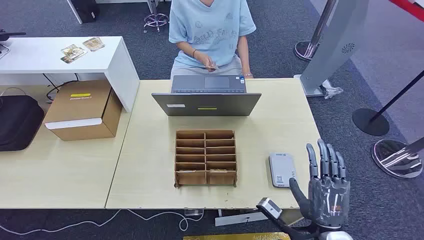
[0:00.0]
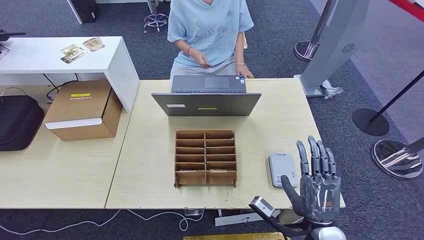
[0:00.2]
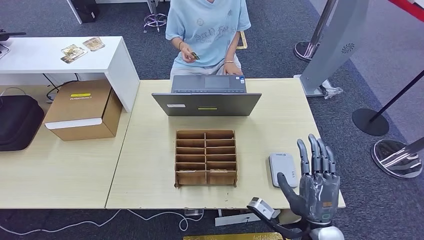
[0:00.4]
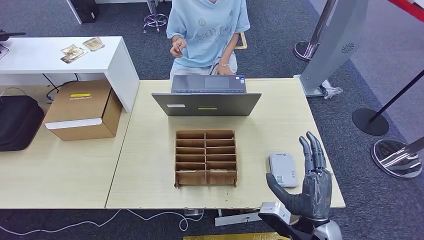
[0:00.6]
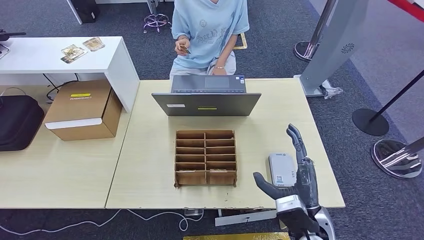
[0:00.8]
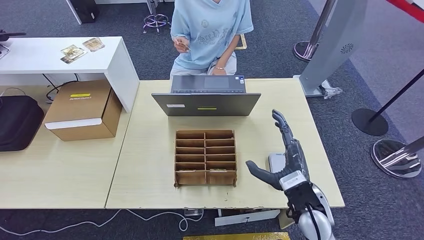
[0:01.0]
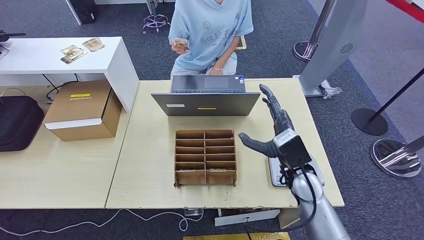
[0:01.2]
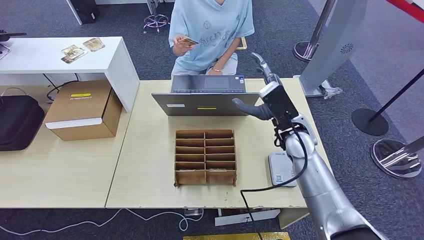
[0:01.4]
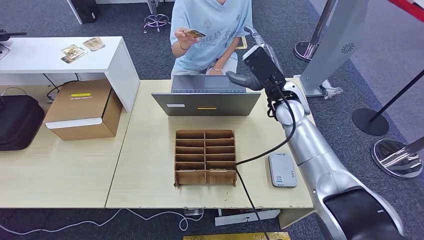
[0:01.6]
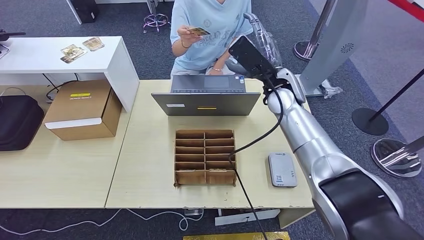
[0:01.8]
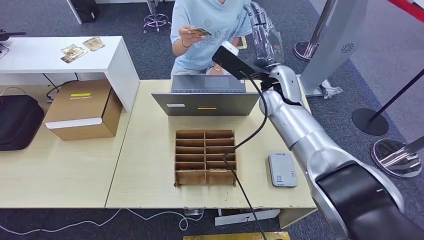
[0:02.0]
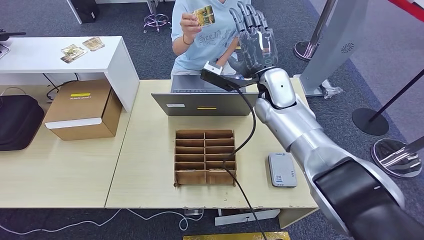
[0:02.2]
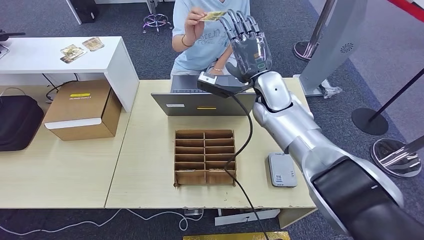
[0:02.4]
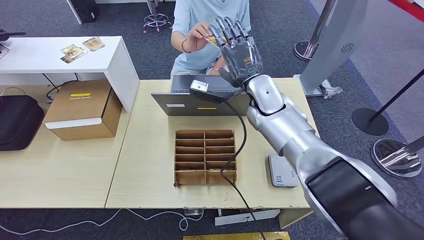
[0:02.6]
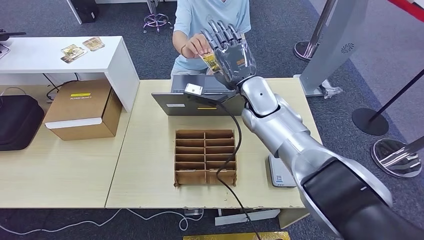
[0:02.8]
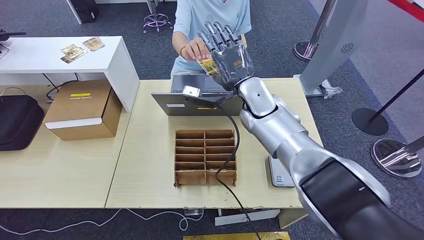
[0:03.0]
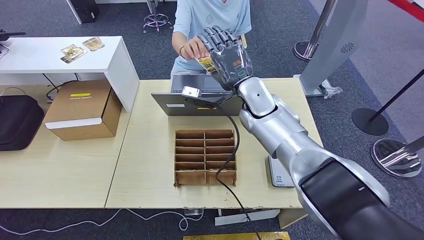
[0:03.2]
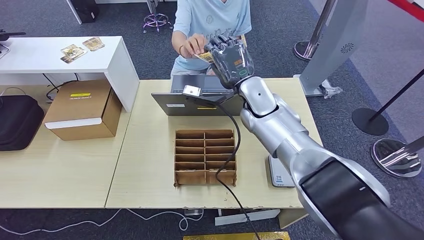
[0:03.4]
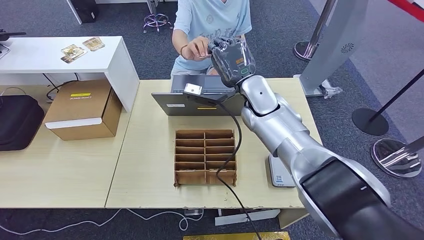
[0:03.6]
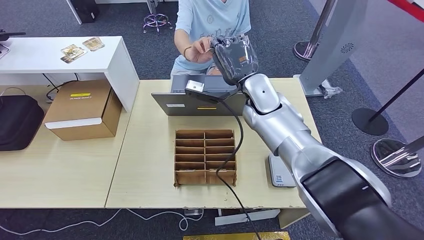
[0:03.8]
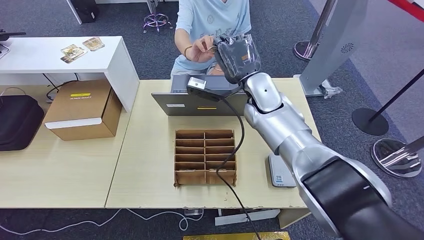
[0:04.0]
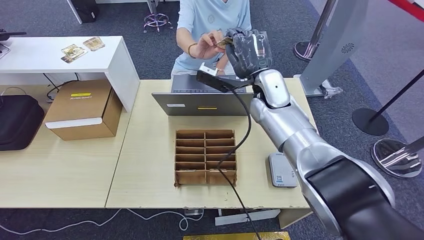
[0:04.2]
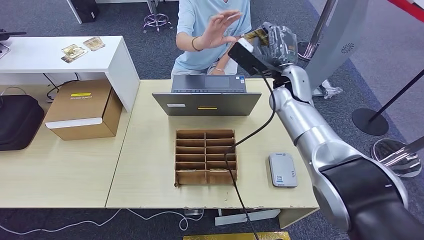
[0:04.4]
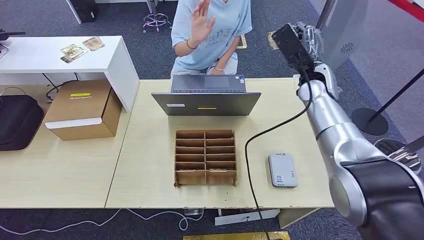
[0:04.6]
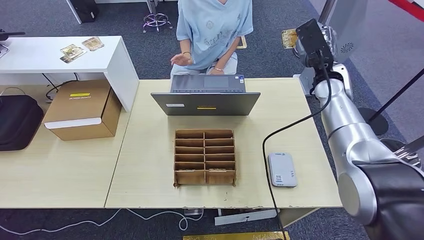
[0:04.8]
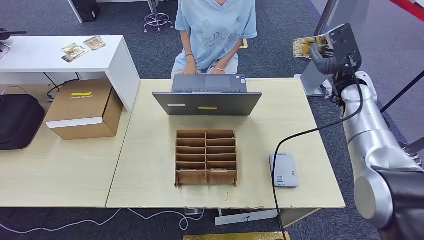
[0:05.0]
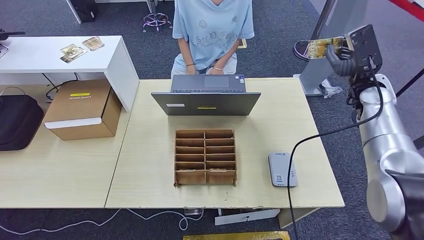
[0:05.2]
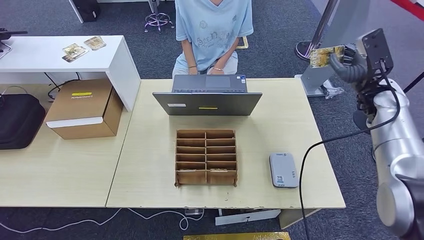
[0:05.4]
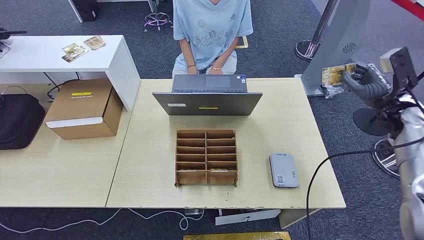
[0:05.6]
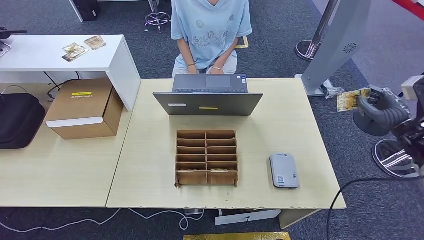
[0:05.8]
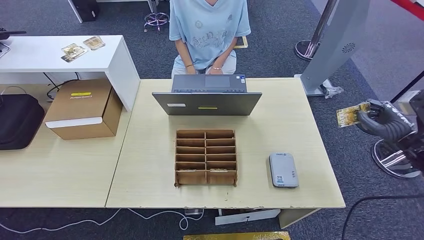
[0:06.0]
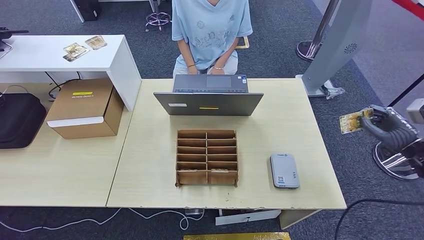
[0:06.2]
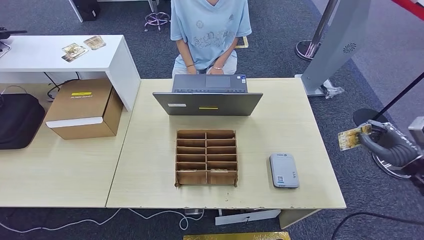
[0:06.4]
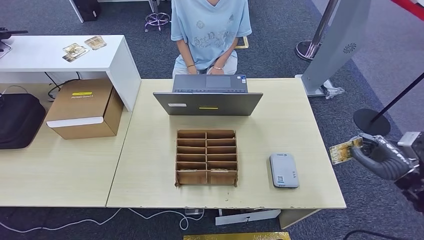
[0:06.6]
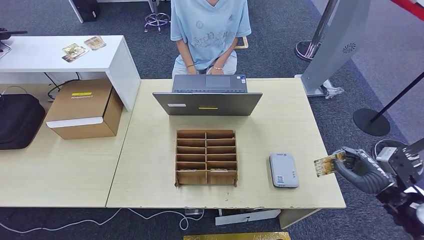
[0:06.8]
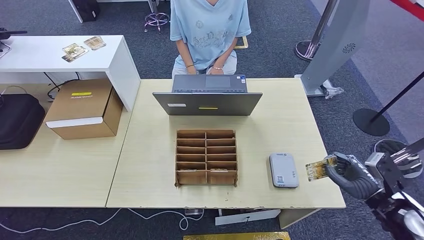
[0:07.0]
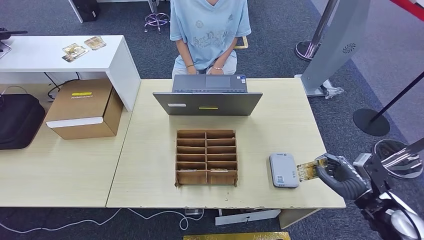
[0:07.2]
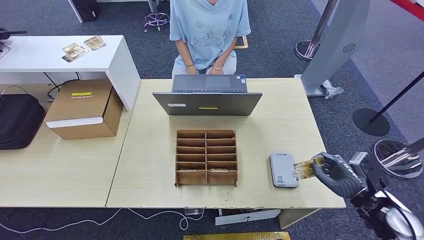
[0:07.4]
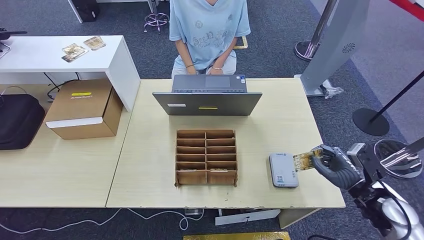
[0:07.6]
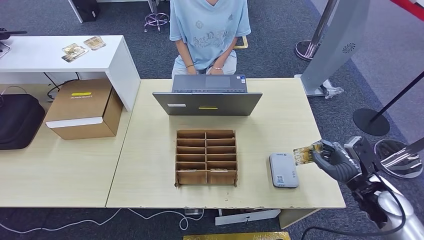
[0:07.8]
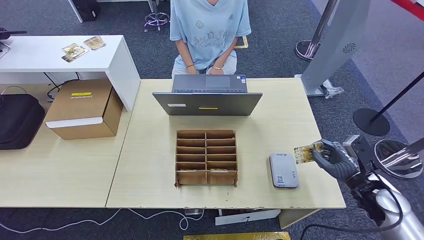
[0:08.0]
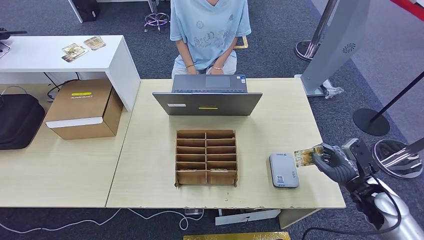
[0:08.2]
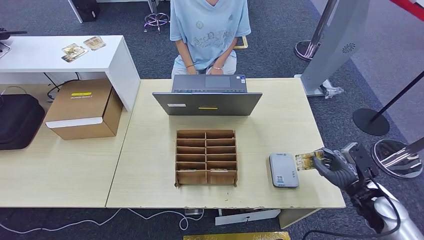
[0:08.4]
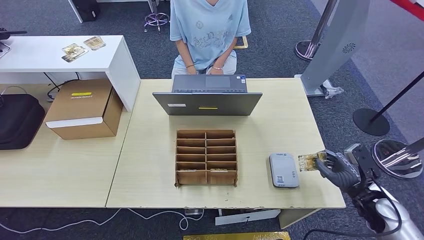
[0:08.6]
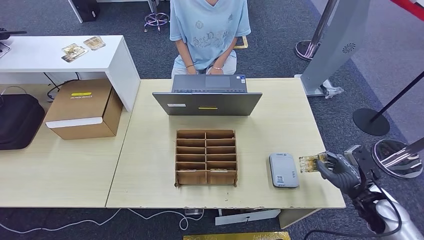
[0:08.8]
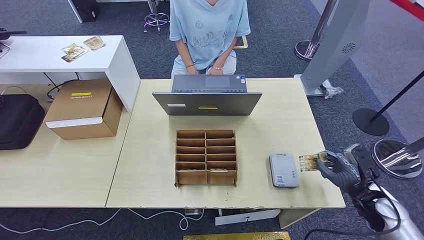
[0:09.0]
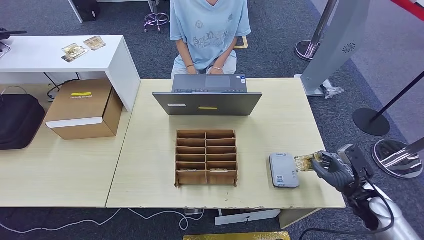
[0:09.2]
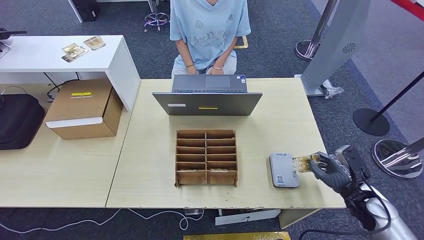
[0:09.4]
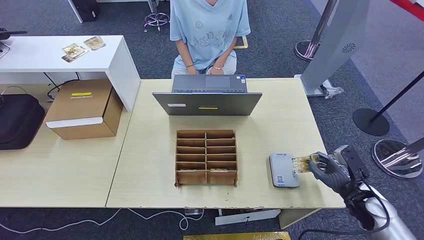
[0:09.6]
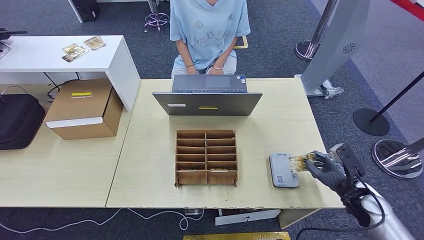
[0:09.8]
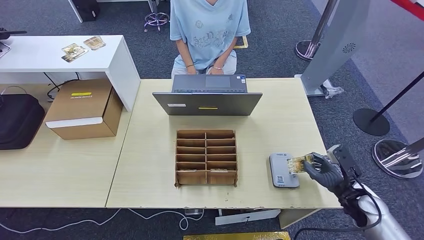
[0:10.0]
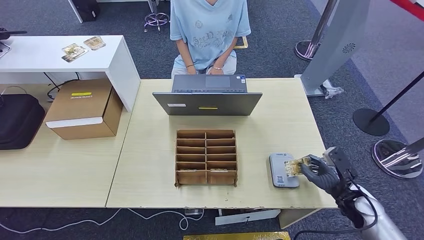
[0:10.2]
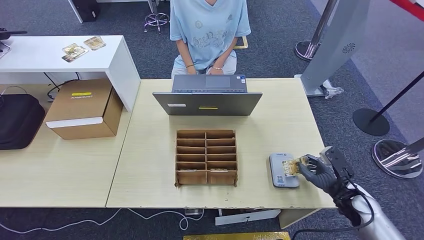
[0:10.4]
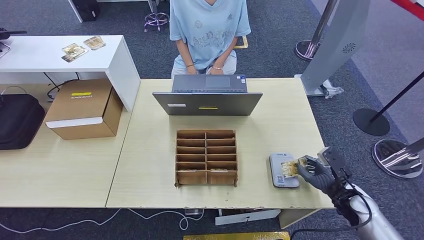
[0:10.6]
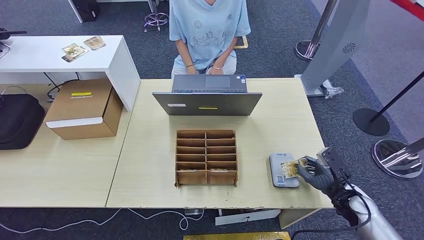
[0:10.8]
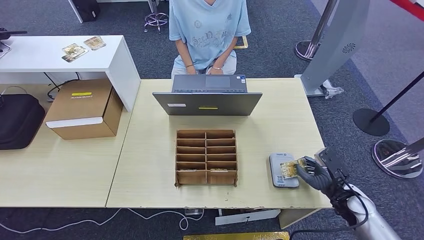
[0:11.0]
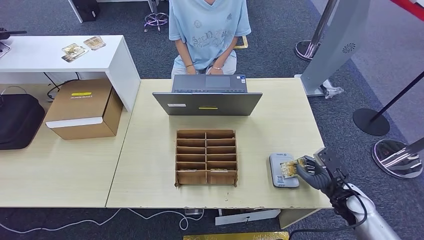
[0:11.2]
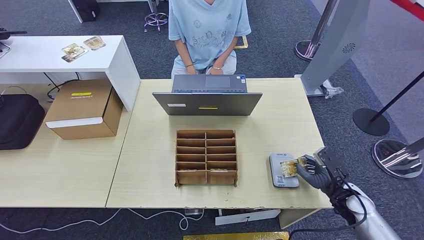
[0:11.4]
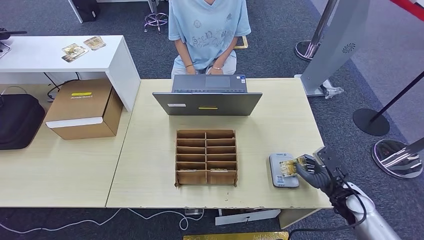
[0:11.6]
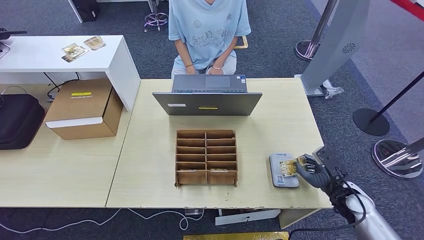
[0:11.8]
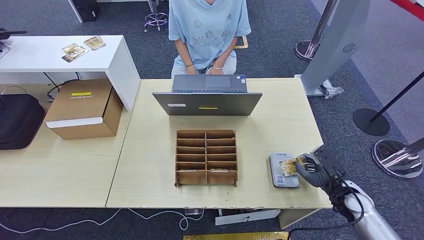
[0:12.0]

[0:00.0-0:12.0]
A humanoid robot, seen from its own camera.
Step, 0:00.0 to 0:06.2: Take the ID card from the person's hand.
0:01.6 to 0:03.0: The right hand goes some 5 cm to the left.
0:03.0 to 0:04.4: The right hand is displaced to the right by roughly 10 cm.
0:04.4 to 0:06.0: The right hand travels to the right and backward by some 35 cm.
0:06.0 to 0:07.6: The right hand travels to the left, downward and backward by roughly 15 cm.
0:07.6 to 0:09.0: There are only small adjustments of the hands.
0:09.0 to 0:12.0: The hands stay close to where they were, moving slightly.

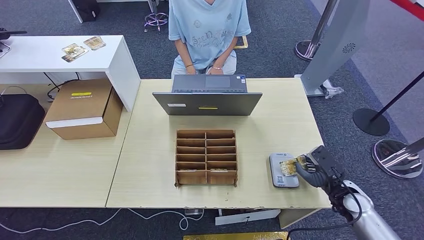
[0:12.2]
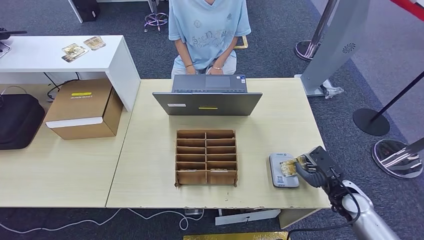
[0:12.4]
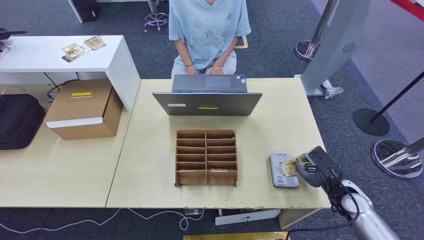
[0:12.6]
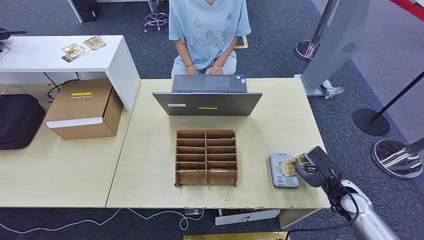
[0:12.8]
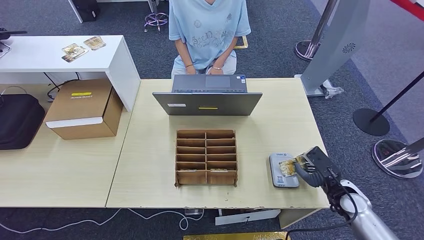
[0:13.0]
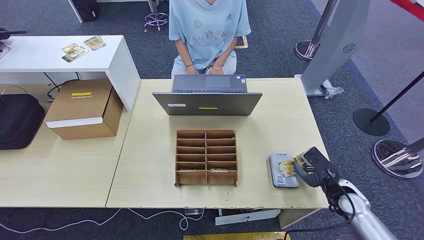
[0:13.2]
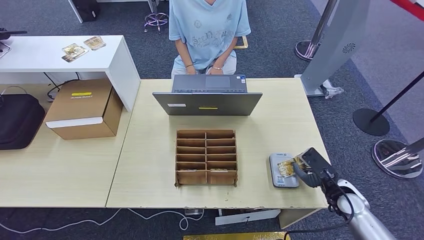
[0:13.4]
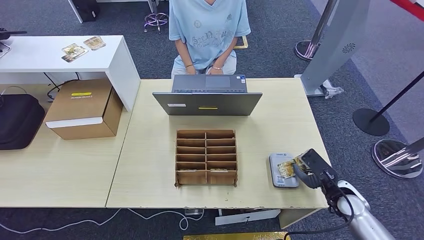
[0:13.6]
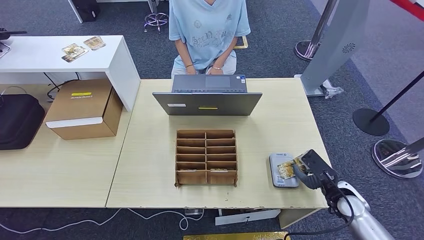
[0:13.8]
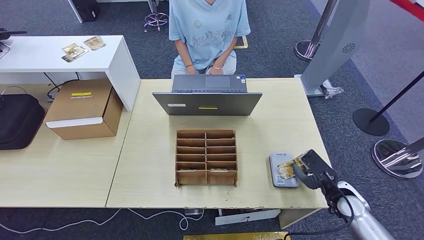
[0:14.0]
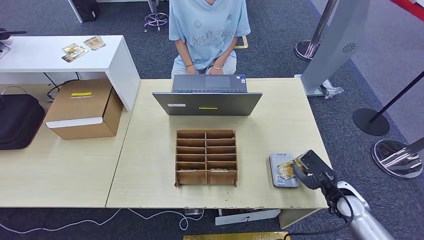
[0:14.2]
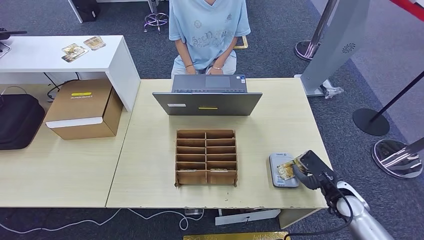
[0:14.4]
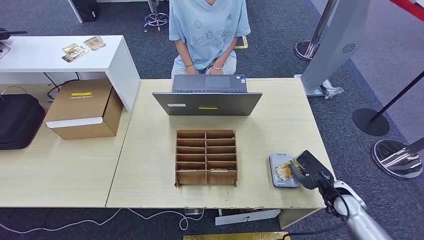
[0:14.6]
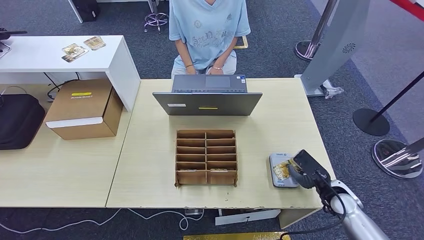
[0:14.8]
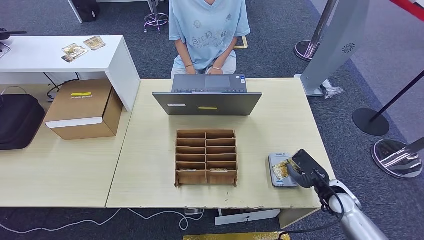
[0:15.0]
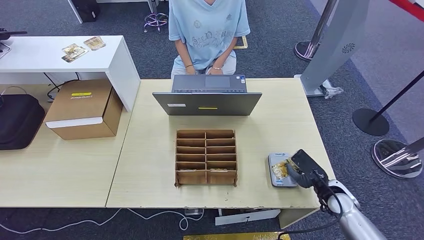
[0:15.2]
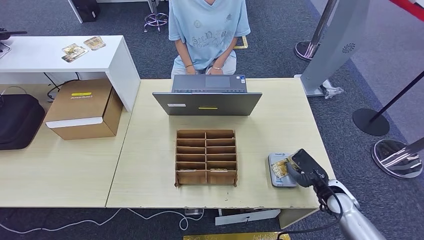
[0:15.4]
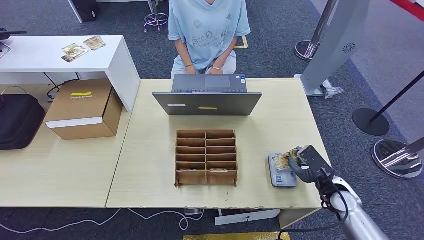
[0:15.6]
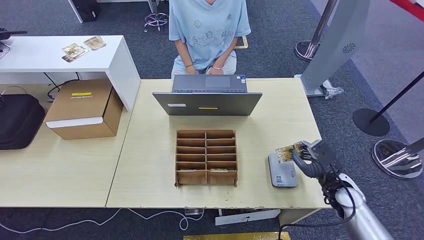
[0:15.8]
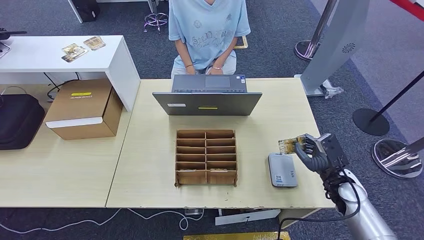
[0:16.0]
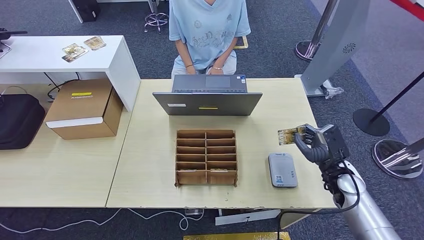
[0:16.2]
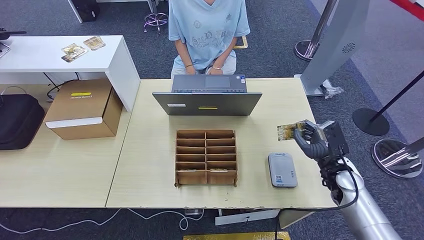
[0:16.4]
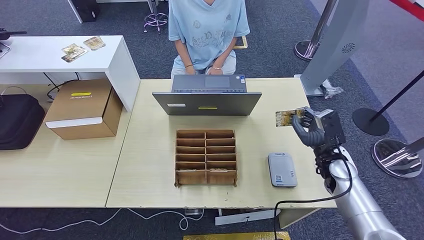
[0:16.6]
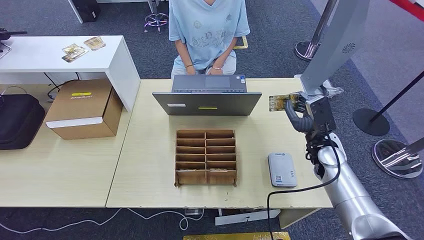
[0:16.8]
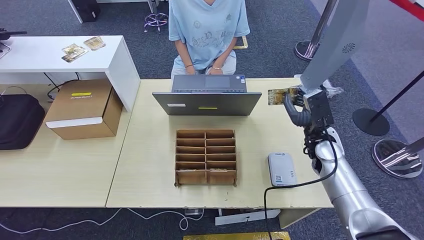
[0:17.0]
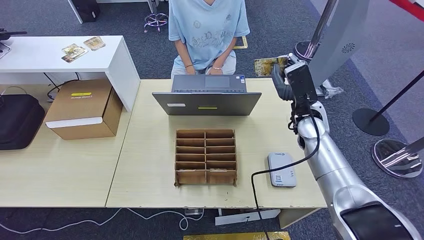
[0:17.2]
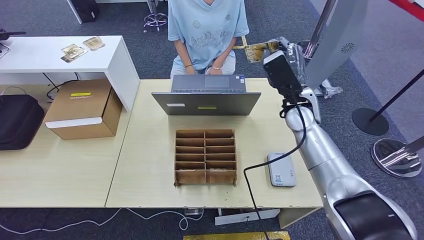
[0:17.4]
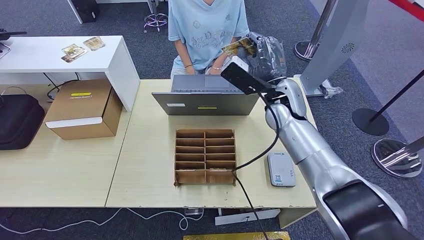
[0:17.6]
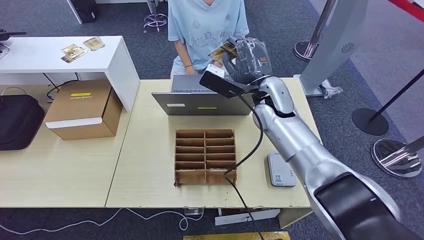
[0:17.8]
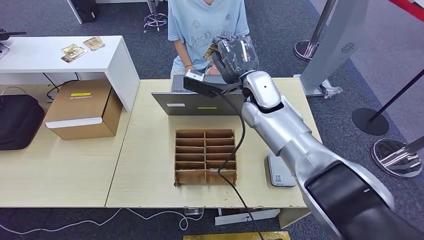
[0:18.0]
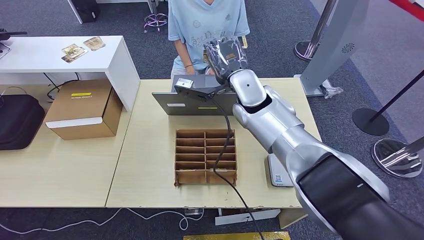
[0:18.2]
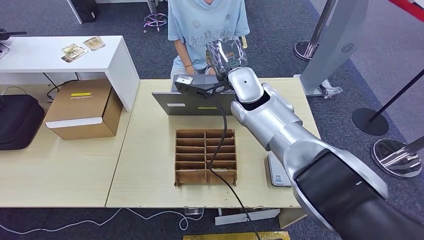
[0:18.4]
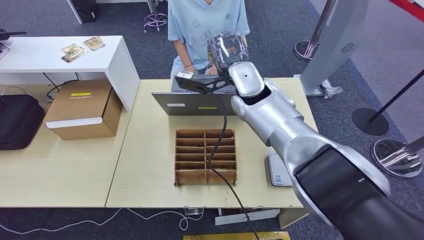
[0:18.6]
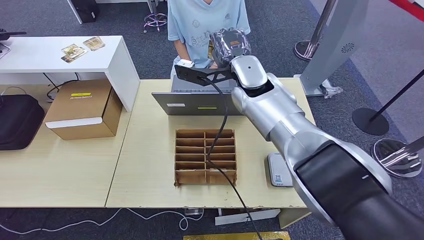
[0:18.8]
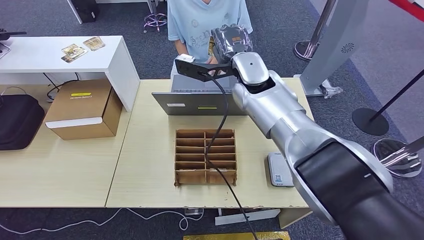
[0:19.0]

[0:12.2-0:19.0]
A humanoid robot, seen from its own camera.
Step, 0:12.2 to 0:16.0: Place the ID card on the card reader.
0:12.2 to 0:15.0: The hands make only small movements.
0:15.0 to 0:16.2: The right hand ends up some 5 cm from where it was.
0:16.2 to 0:17.6: The right hand goes approximately 30 cm to the left, upward and forward.
0:17.6 to 0:19.0: The right hand is displaced to the left and upward by some 10 cm.
